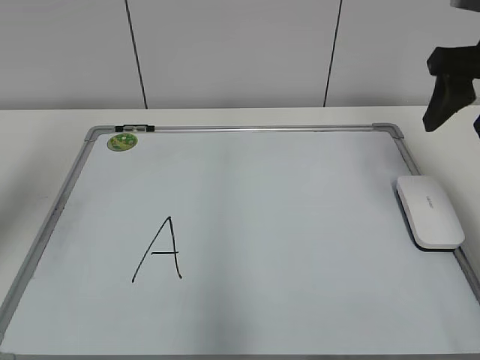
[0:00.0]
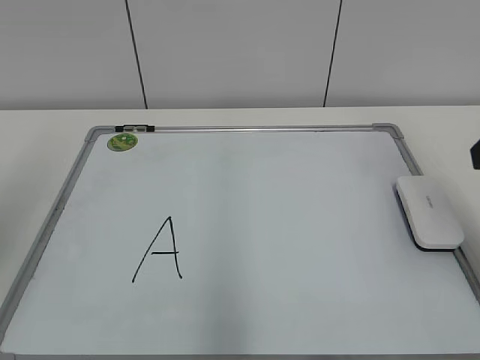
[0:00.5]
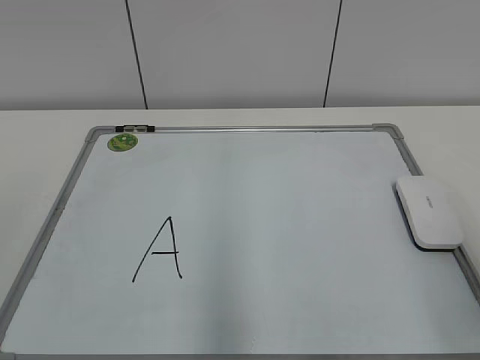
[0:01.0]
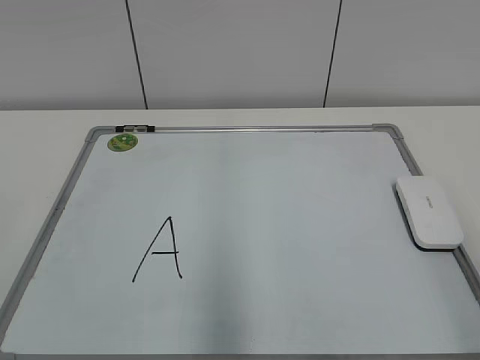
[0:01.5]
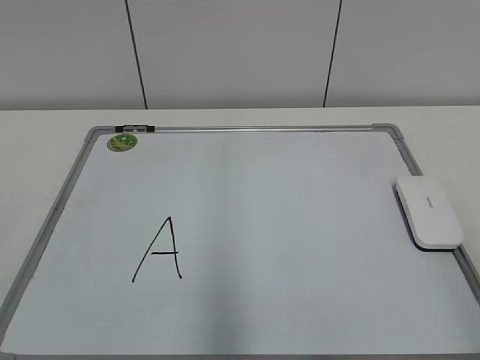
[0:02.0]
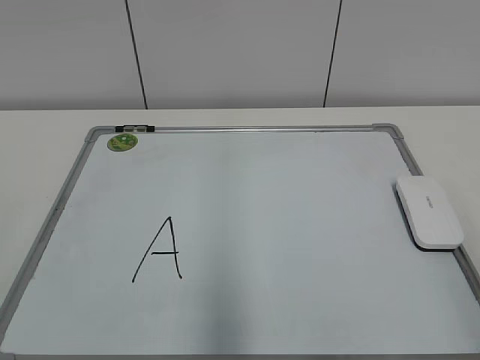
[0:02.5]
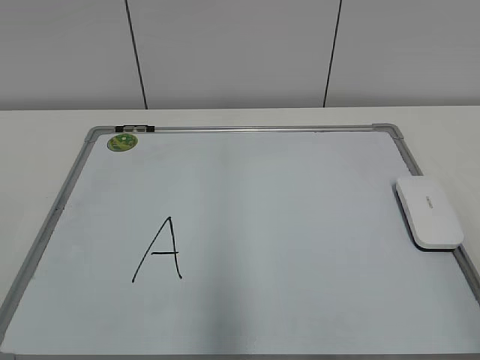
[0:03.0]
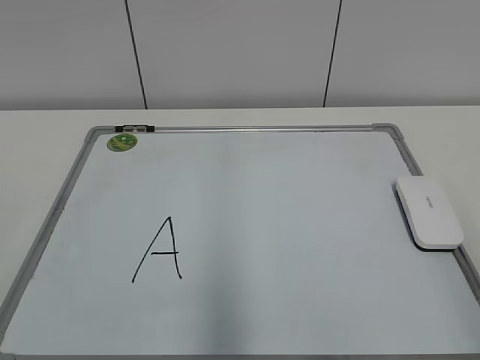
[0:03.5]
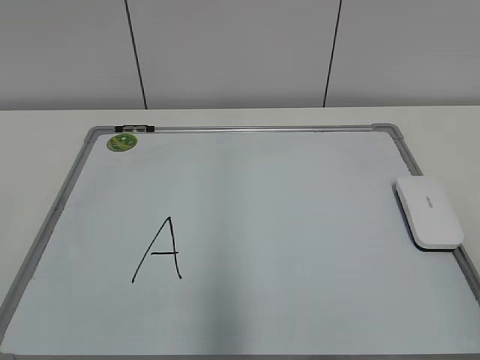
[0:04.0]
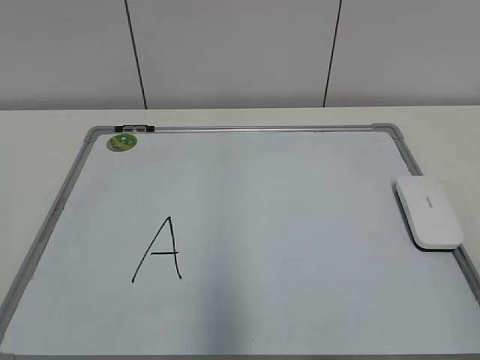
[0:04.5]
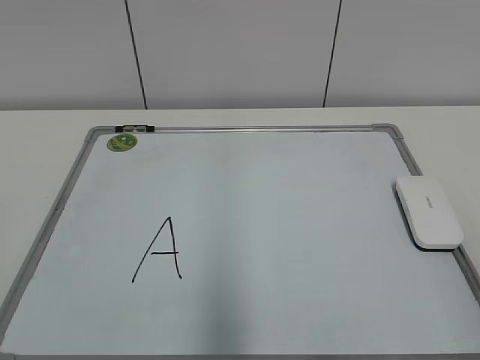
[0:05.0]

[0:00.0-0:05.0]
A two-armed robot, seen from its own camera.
Task of the whole recording: pick up the eraser on the blackboard and erase the letter "a".
0:00.0 to 0:02.5: Both grippers travel together backward, roughly 30 cm.
